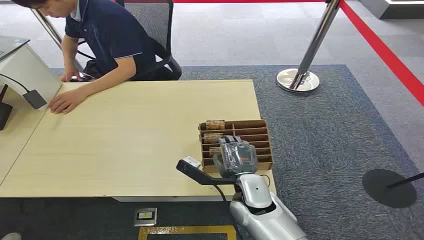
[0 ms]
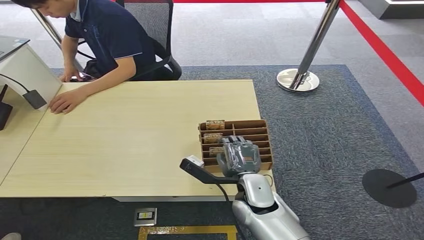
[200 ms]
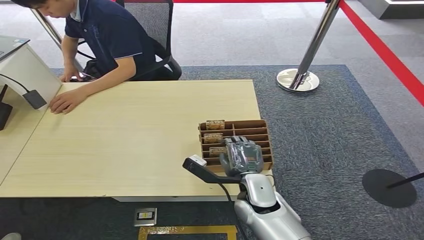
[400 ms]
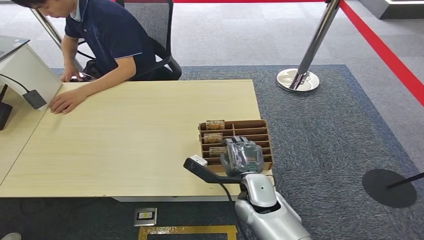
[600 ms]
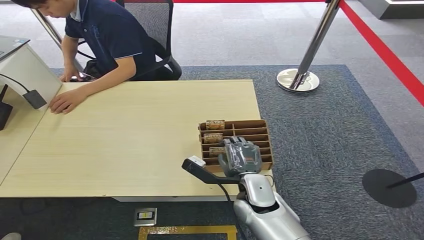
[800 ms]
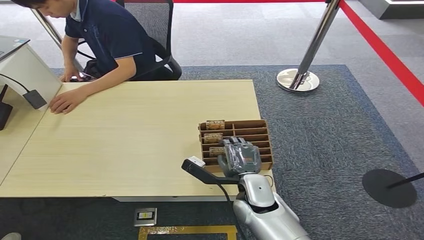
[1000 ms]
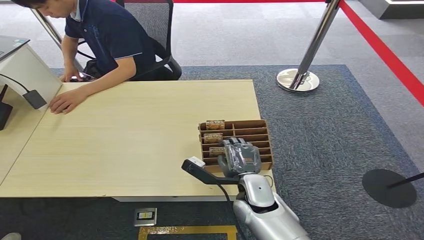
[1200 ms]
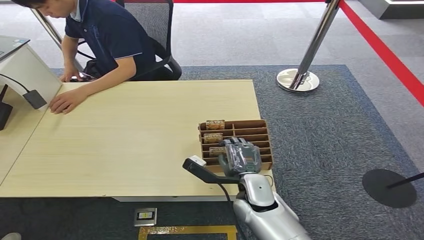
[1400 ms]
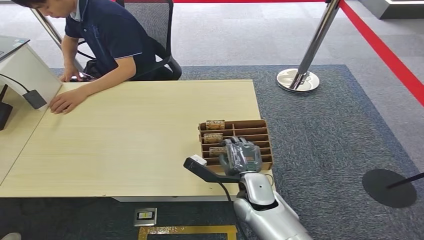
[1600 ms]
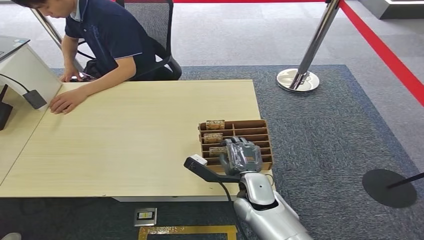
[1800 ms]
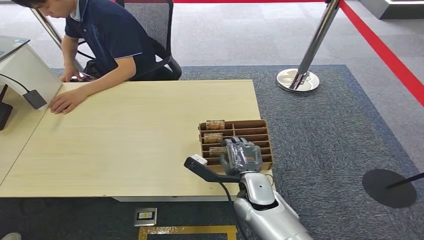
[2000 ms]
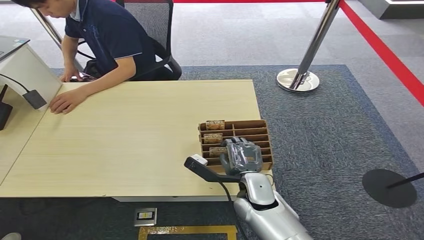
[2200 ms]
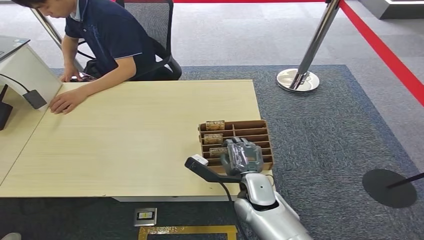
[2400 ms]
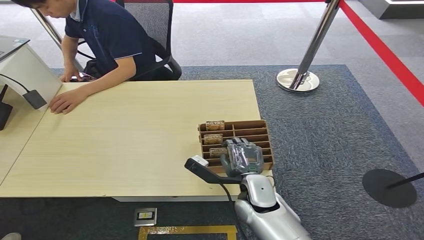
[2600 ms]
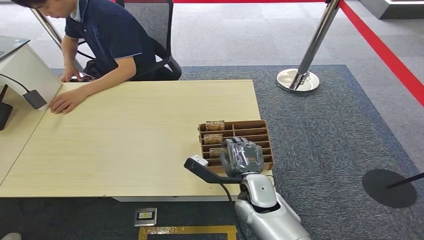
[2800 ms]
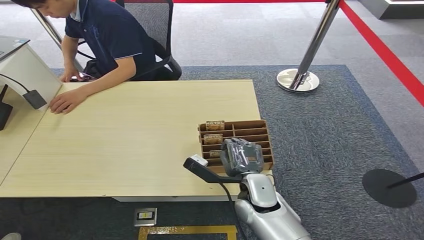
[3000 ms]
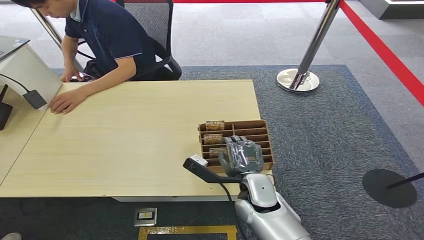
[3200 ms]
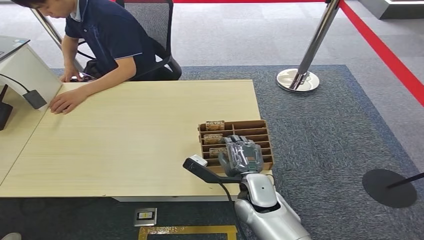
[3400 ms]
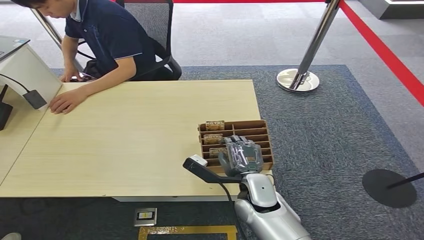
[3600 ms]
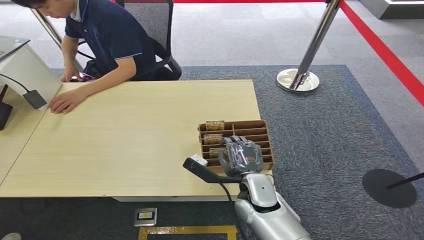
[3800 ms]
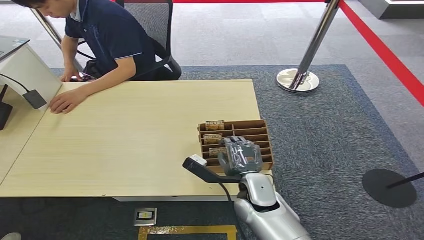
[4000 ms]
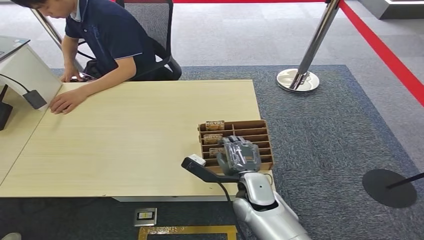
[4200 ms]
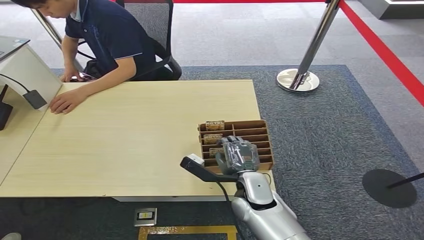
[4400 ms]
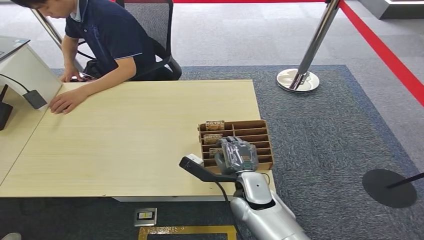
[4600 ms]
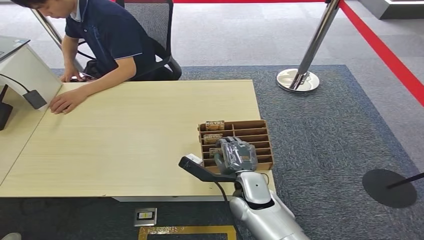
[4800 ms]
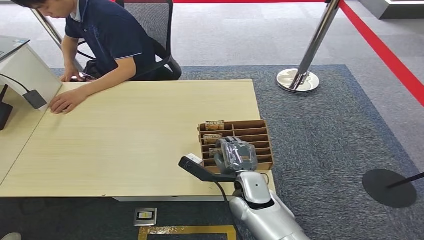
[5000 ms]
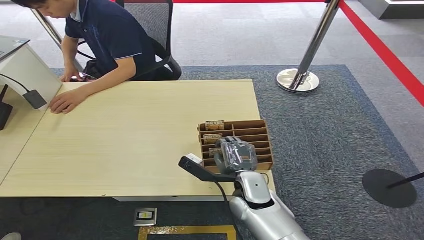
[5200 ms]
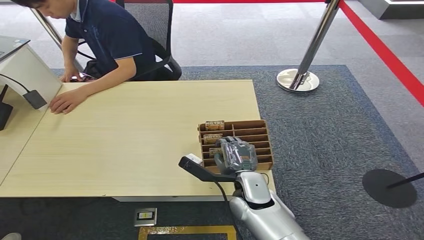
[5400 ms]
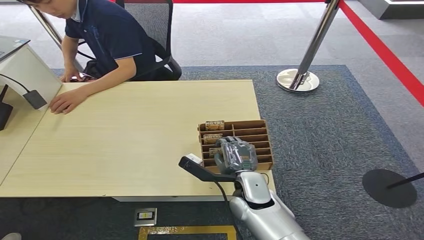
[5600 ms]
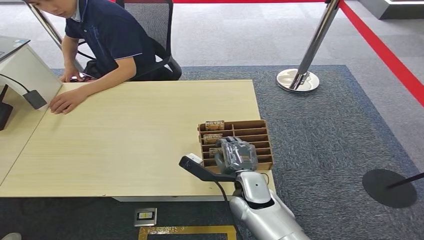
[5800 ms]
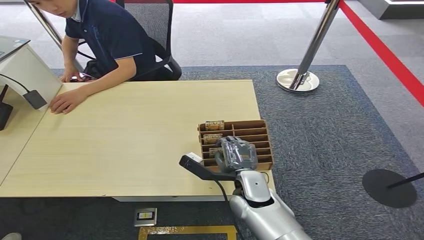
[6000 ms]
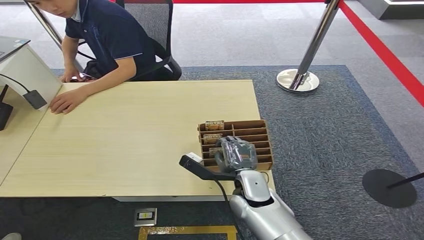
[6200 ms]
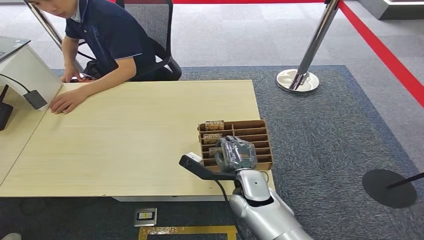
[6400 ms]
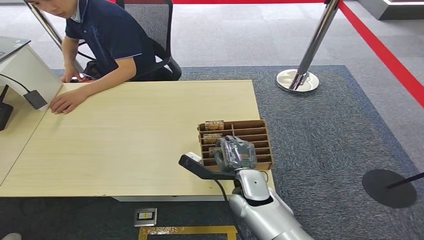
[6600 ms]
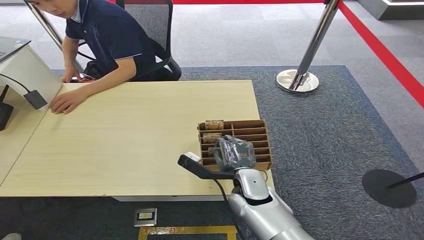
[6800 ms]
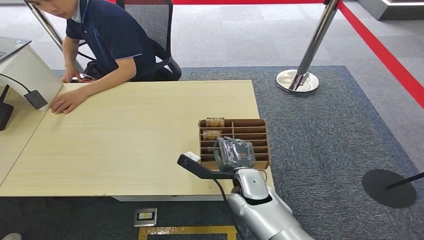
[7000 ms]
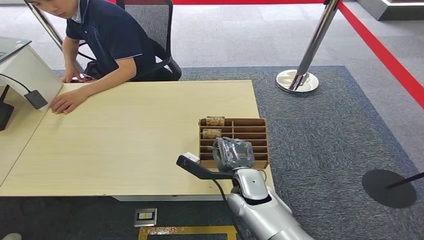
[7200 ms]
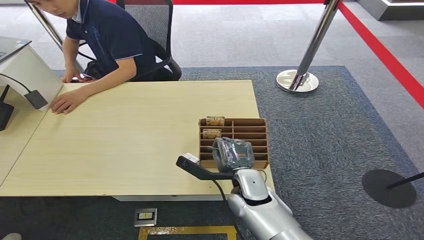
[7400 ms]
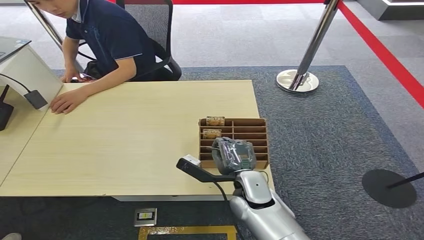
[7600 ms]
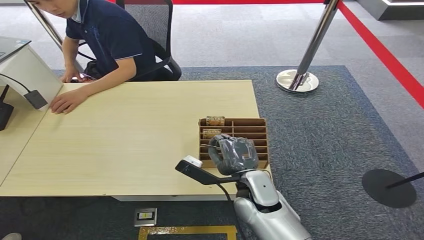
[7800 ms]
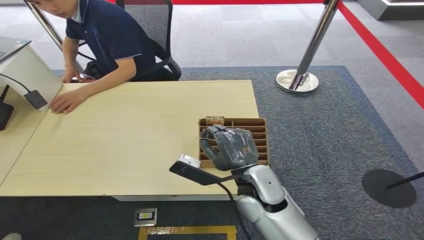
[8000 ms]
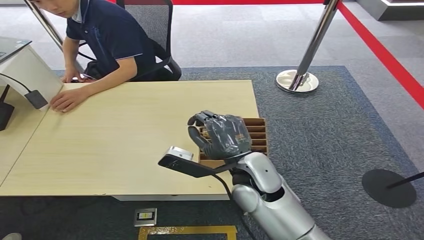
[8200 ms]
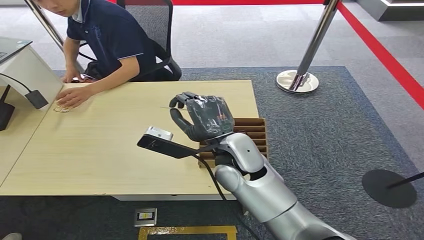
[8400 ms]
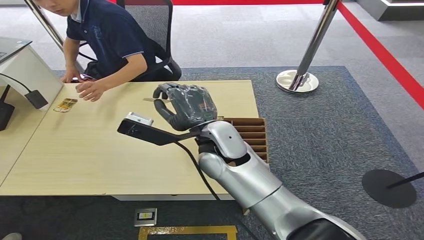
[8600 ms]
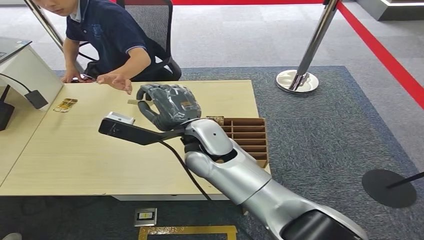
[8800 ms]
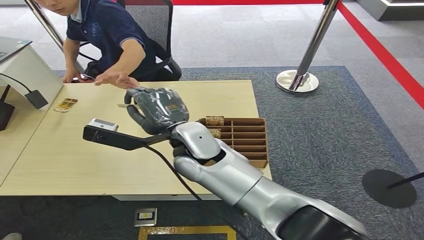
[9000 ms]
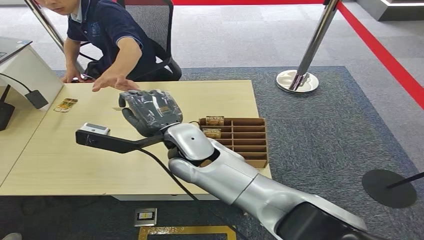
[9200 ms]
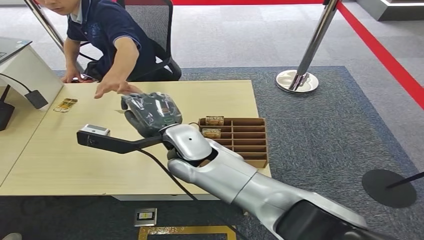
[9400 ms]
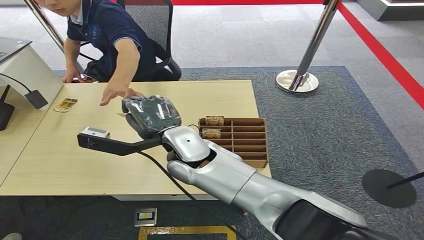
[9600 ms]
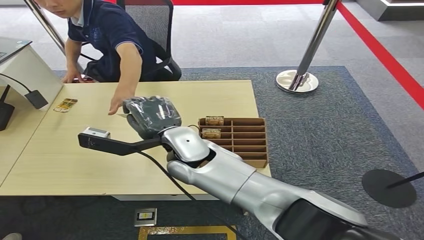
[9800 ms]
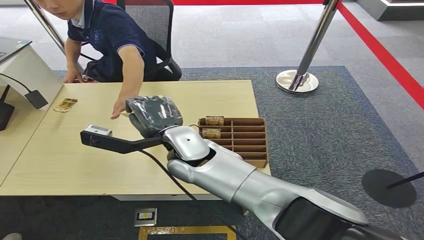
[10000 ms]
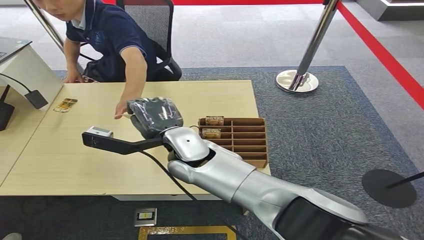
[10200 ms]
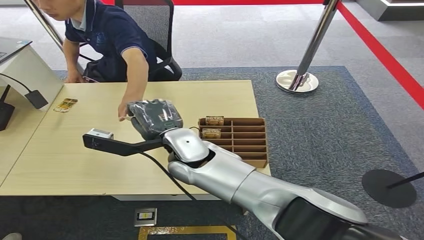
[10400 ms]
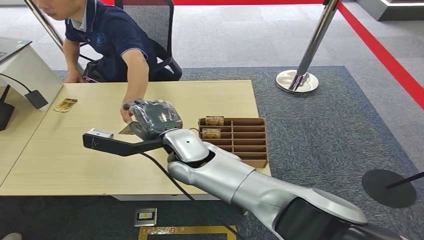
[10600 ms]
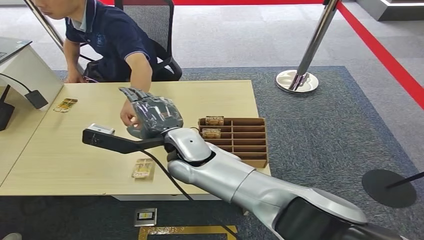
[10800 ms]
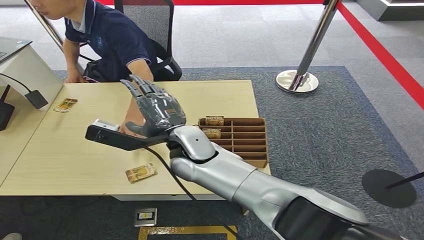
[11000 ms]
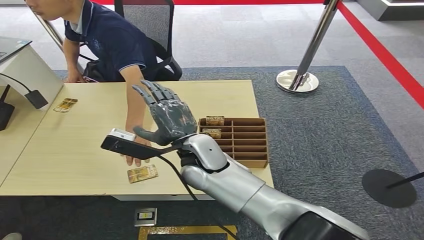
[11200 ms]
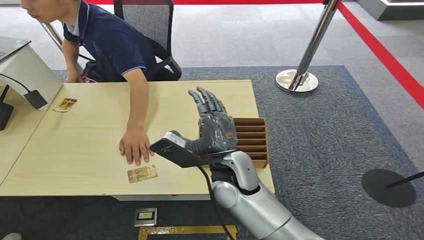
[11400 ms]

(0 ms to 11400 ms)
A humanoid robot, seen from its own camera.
Task of the whole recording: Pick up the card and hand it to the target person.
Step, 0 ms - 7600 ms: Pick up the key card from the card box.
Step, 7800 ms - 11400 ms: Hand the key card to the target.
1400 ms - 5600 ms: Neither hand changes place.
5600 ms - 7200 ms: Neither hand changes place.
7200 ms - 8600 ms: The right hand heads upward, forward and to the left, covering about 20 cm.
8600 ms - 10000 ms: There are only small adjustments of the hands.
10000 ms - 11400 ms: The right hand travels backward and downward by roughly 10 cm.
